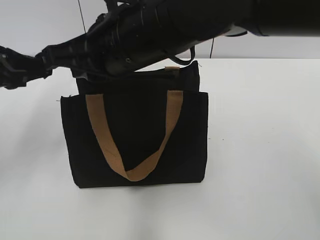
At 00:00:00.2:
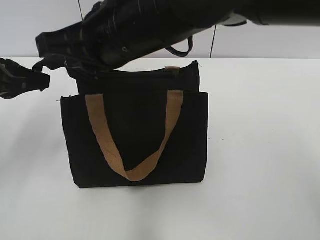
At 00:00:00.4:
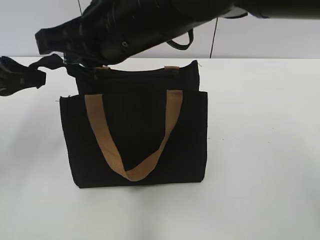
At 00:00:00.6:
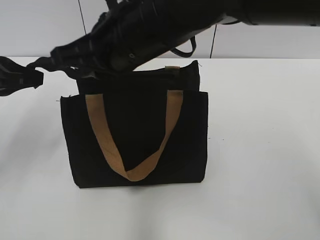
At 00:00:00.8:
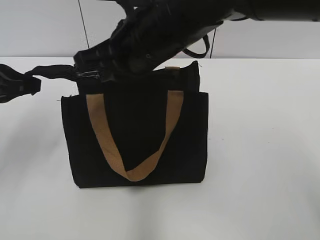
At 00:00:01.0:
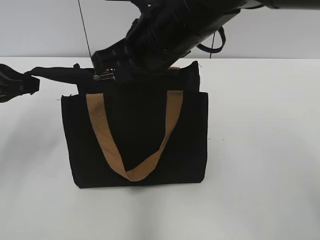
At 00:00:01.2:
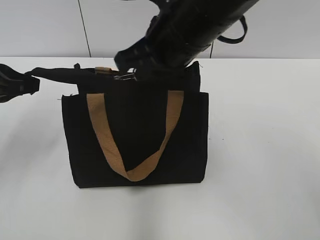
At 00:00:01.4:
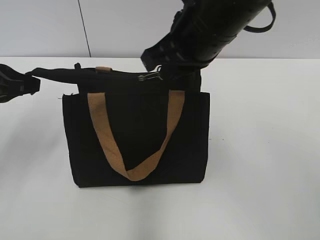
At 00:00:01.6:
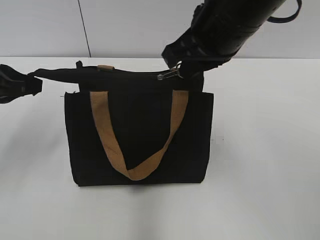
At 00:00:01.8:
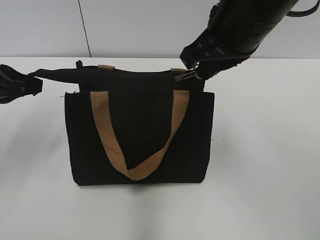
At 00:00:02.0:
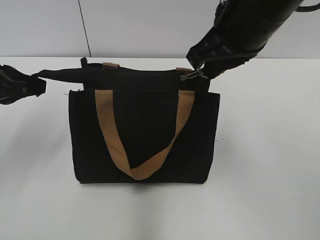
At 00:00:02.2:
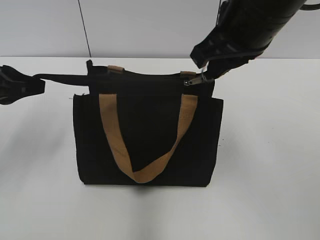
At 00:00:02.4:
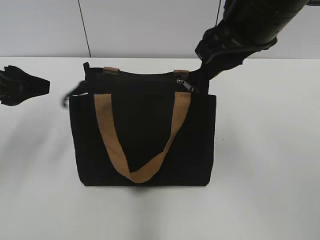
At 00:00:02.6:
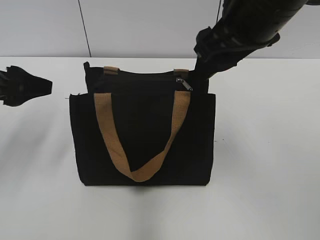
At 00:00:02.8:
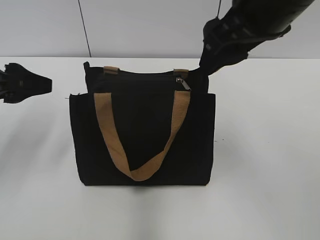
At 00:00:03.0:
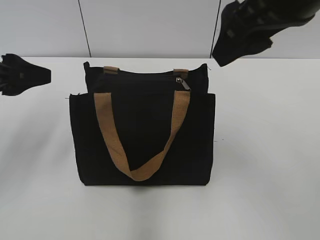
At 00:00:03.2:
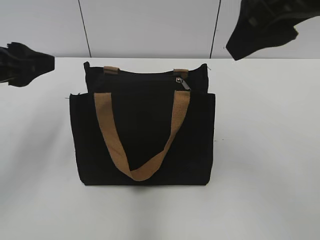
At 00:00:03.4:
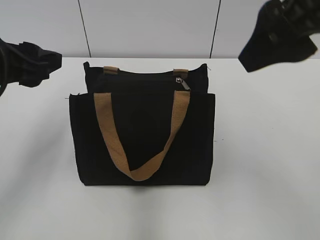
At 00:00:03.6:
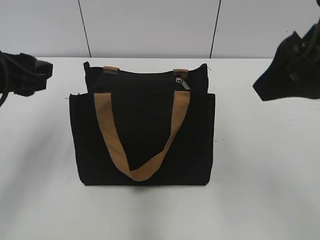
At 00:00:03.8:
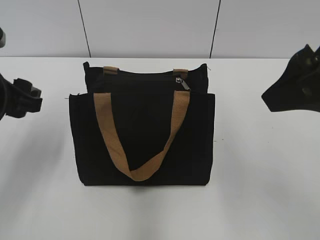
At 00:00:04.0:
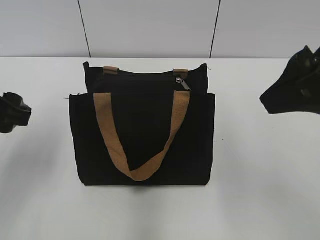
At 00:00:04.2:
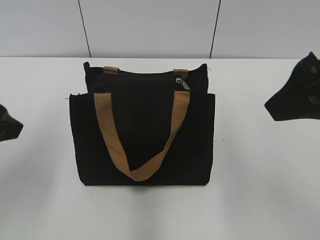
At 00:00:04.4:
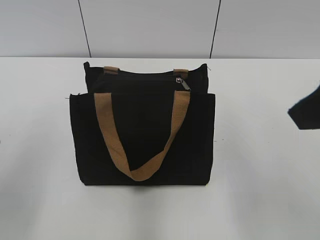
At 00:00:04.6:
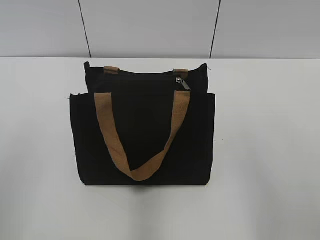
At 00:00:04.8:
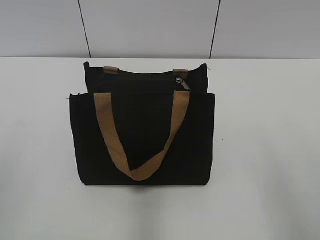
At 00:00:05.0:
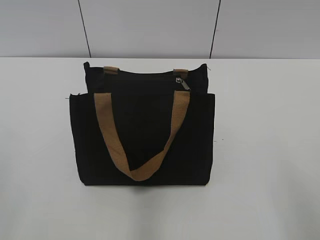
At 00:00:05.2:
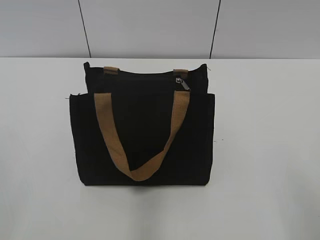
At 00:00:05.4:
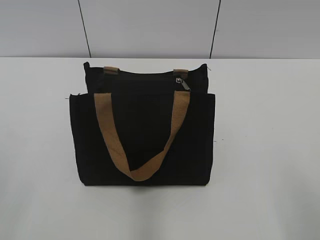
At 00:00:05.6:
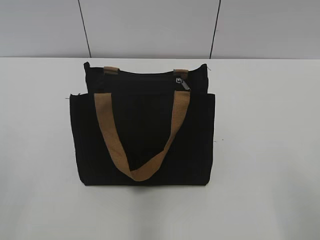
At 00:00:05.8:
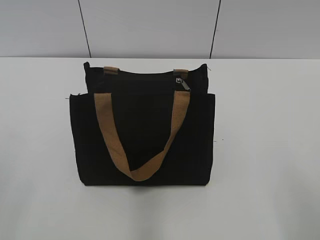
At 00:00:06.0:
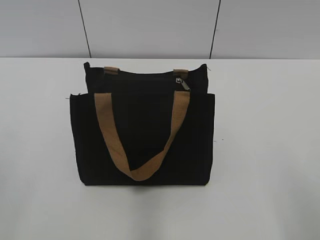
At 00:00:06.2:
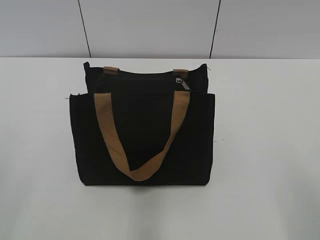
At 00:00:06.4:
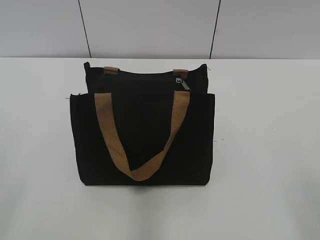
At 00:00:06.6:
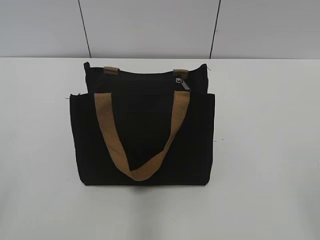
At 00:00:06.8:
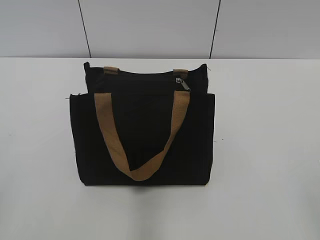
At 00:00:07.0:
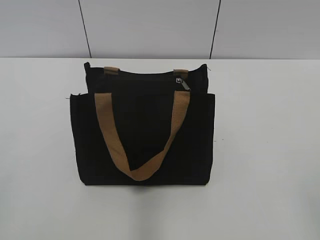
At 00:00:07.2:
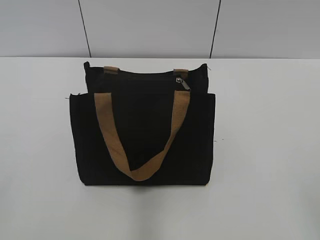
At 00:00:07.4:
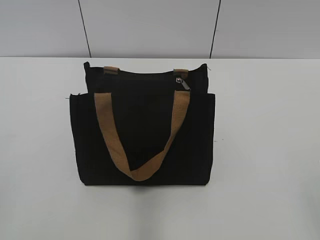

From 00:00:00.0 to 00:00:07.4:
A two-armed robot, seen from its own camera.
Step, from 00:00:00.0 to 00:00:02.2: Zip up the bag with your right hand.
From 00:00:00.0 to 00:00:01.4: The right gripper goes approximately 10 cm to the right.
From 00:00:01.4 to 00:00:03.0: The right gripper shifts approximately 10 cm upward and to the right, and opens up. The left gripper opens up.
From 00:00:03.0 to 00:00:04.4: The left gripper heads backward, covering roughly 10 cm; the right gripper heads backward and to the right, covering about 10 cm.
From 00:00:04.4 to 00:00:06.0: The right gripper is displaced backward, downward and to the right by some 20 cm.
